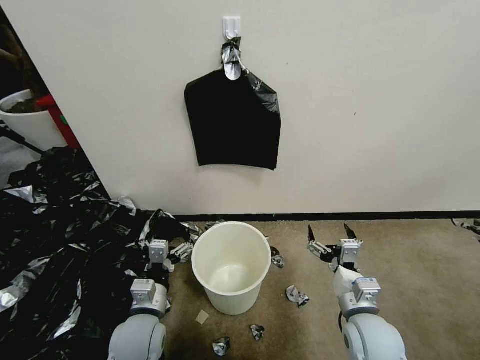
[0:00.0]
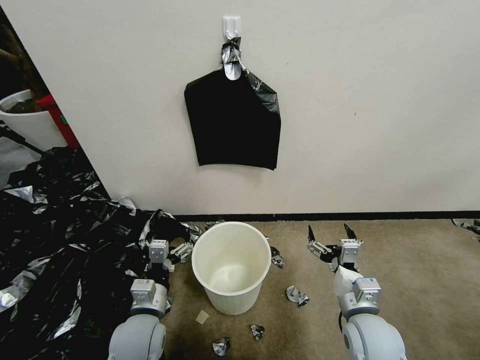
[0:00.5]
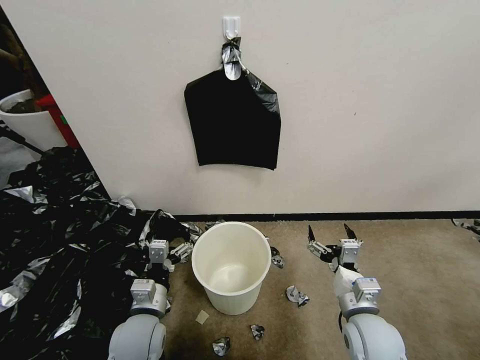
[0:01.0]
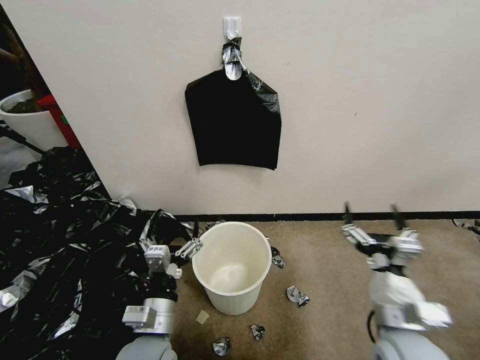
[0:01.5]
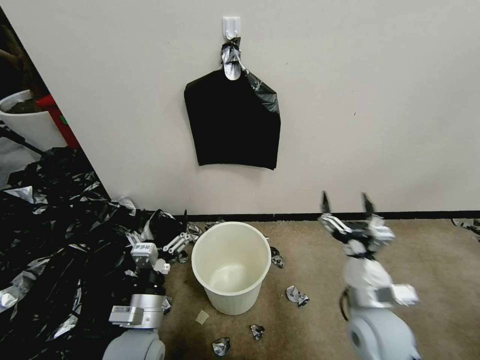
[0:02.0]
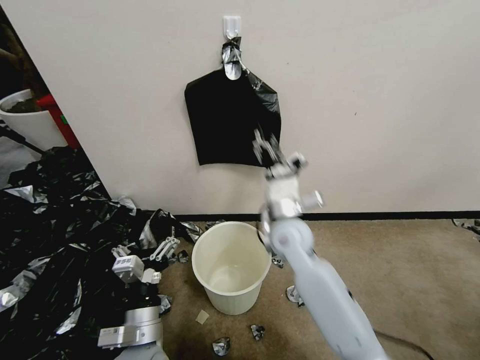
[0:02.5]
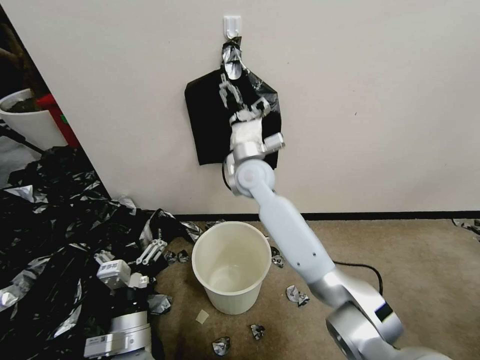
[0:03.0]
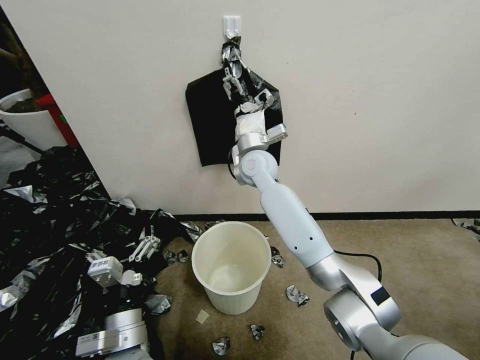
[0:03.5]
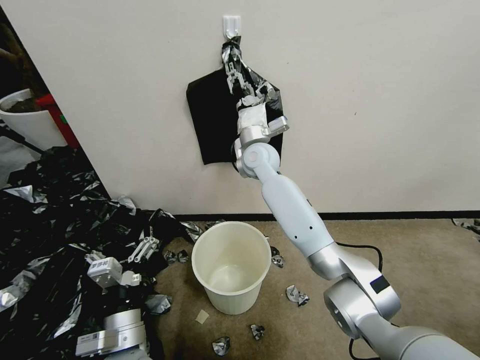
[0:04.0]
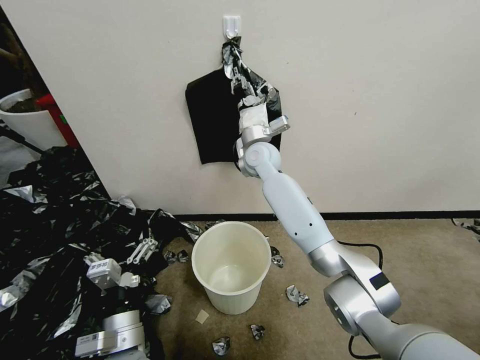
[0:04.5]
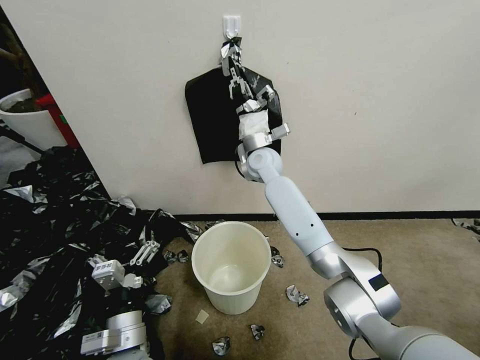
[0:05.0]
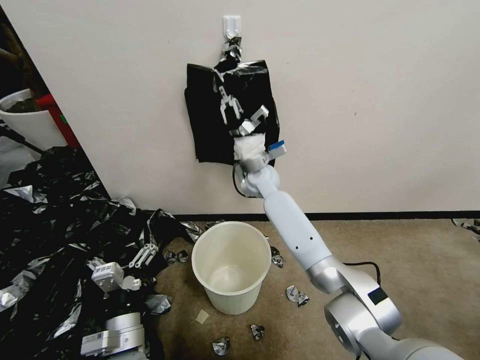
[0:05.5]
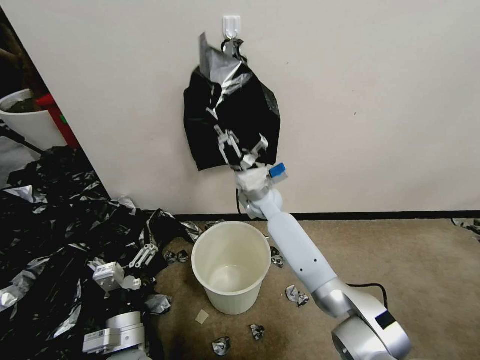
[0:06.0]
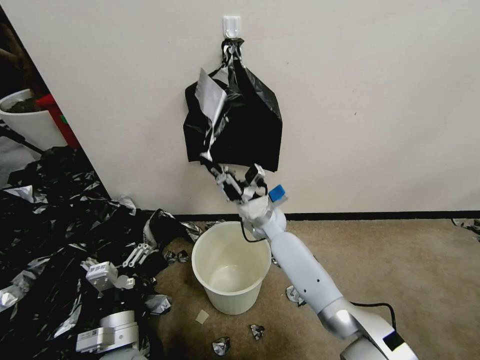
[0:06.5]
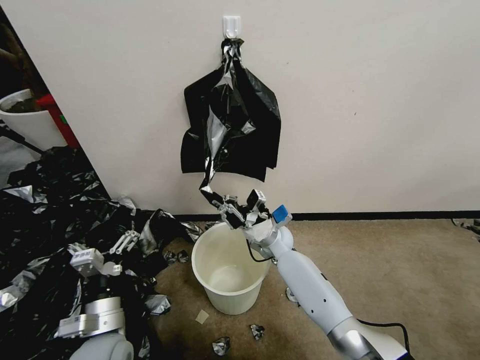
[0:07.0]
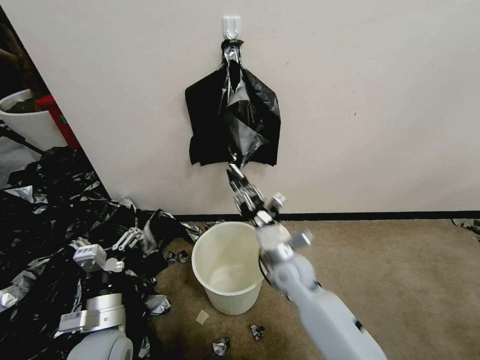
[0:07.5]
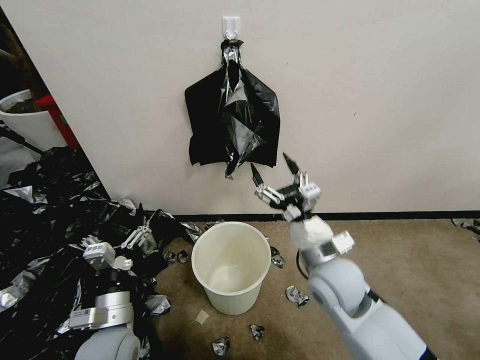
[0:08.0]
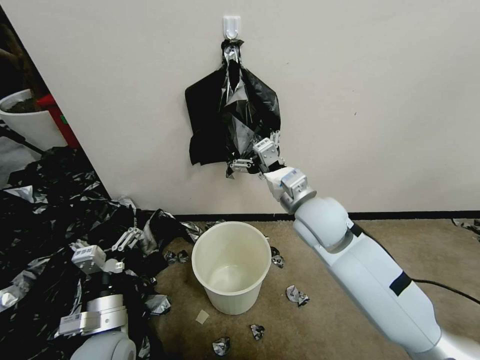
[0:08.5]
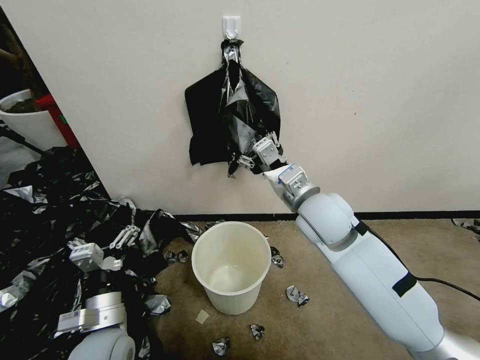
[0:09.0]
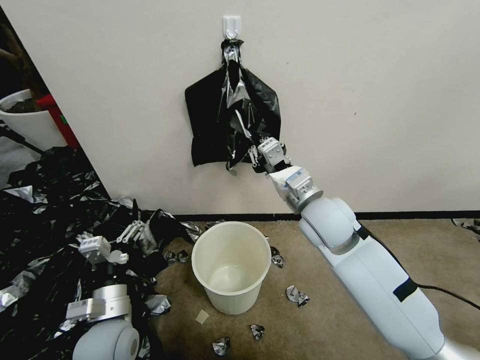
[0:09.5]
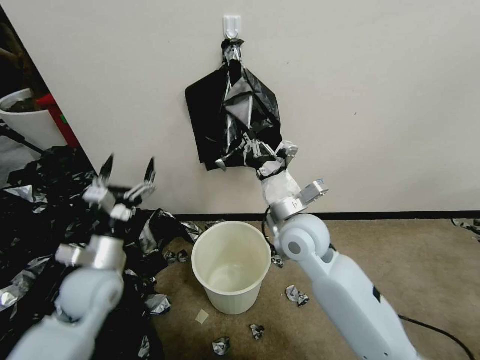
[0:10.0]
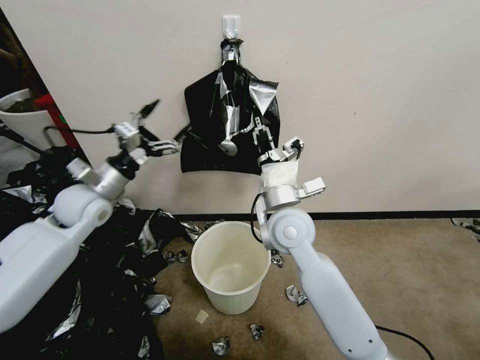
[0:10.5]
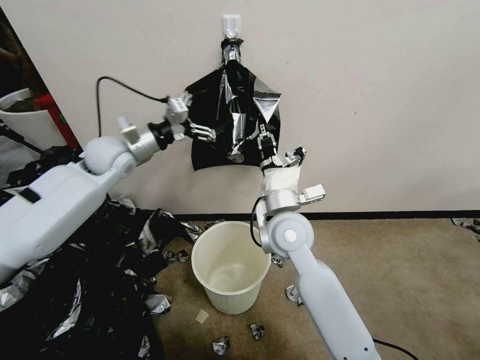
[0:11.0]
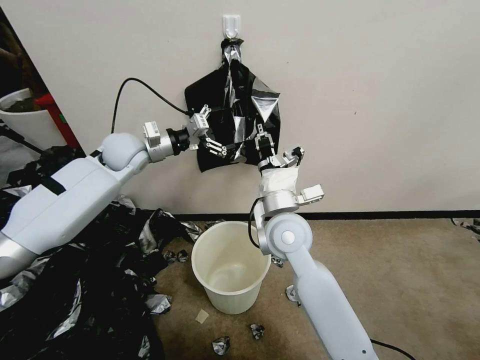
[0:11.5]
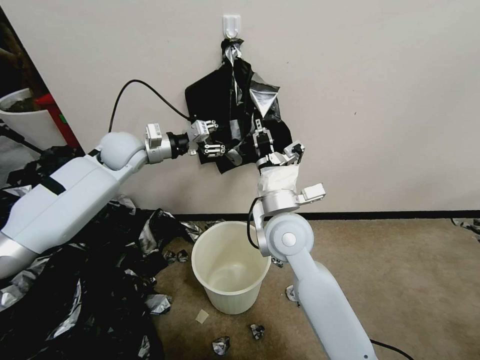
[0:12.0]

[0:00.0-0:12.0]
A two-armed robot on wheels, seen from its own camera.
Task of the whole recording: Place a trash bag onto the trash bin.
0:02.0 to 0:04.0: The right gripper is displaced forward, to the left and upward by approximately 40 cm, and closes.
0:04.0 to 0:06.0: The right gripper travels downward by some 10 cm, and closes up.
0:06.0 to 0:08.0: The right gripper goes approximately 25 cm backward and to the right, and opens, while the left gripper shifts by approximately 5 cm.
0:08.0 to 0:10.0: The left gripper goes some 10 cm forward and upward. The right gripper moves forward, to the left and upward, about 10 cm, and closes.
0:10.0 to 0:12.0: The left gripper goes approximately 30 cm forward and upward, and closes.

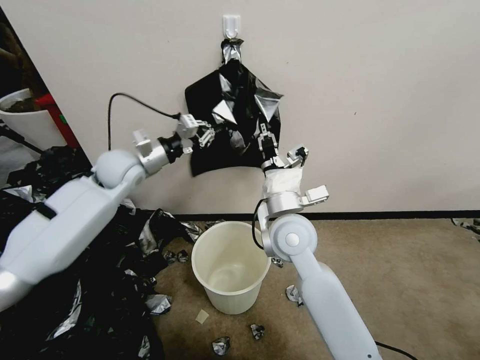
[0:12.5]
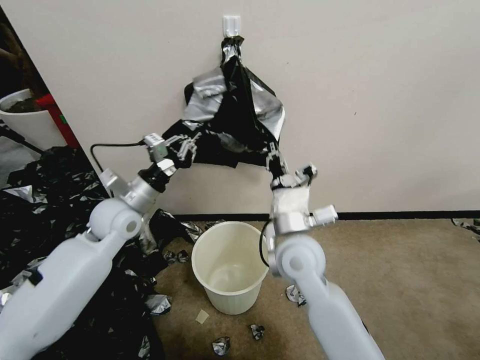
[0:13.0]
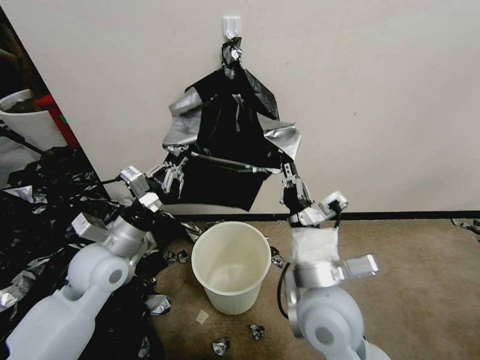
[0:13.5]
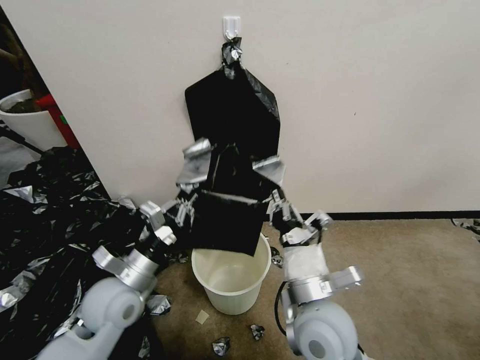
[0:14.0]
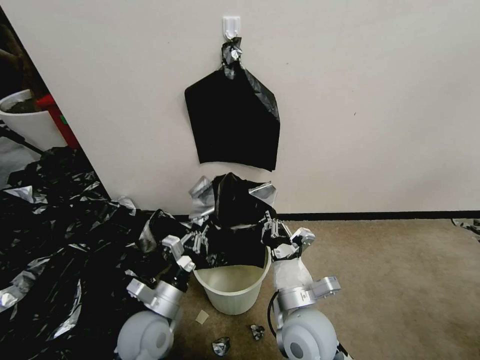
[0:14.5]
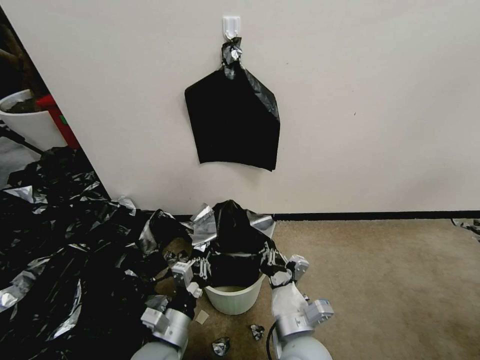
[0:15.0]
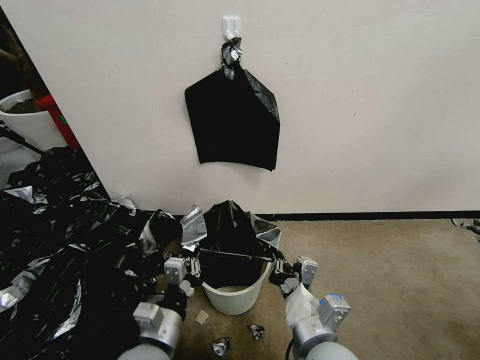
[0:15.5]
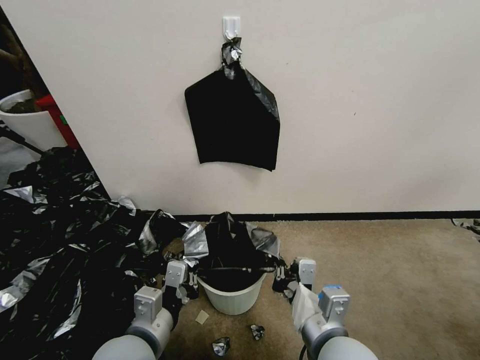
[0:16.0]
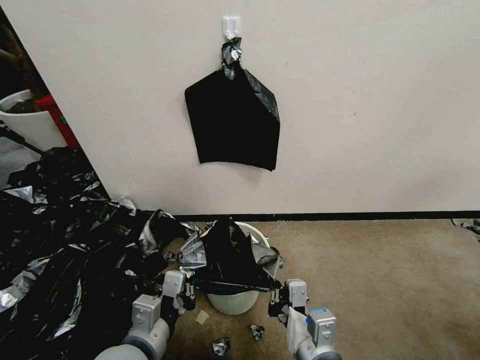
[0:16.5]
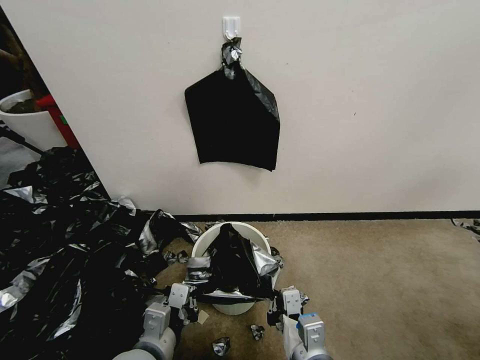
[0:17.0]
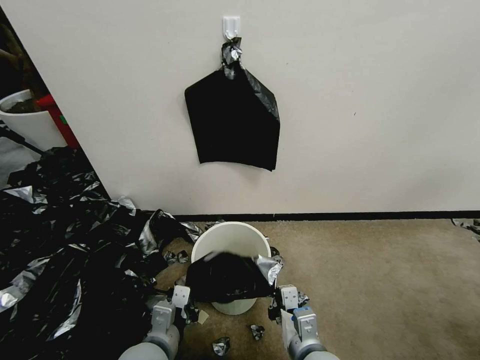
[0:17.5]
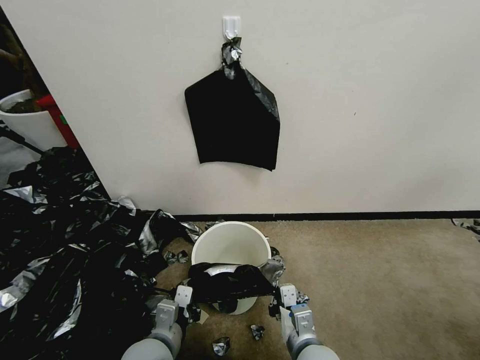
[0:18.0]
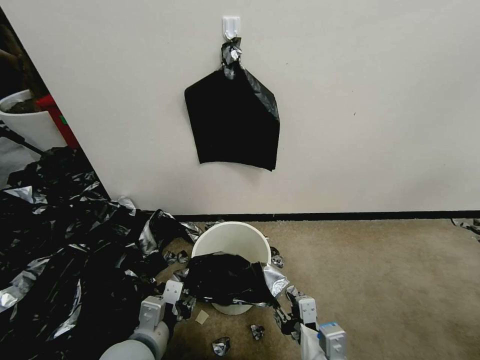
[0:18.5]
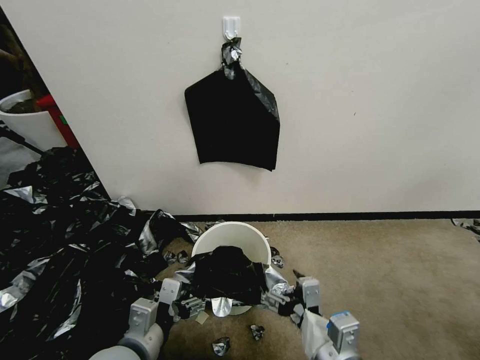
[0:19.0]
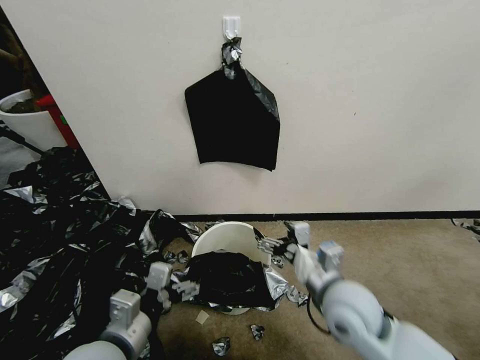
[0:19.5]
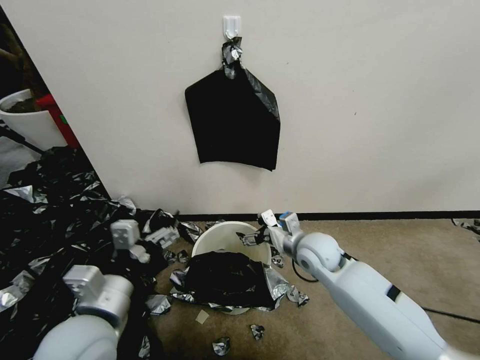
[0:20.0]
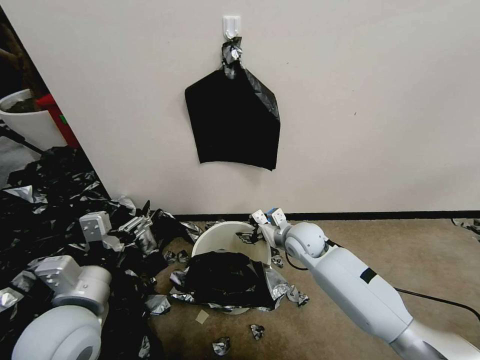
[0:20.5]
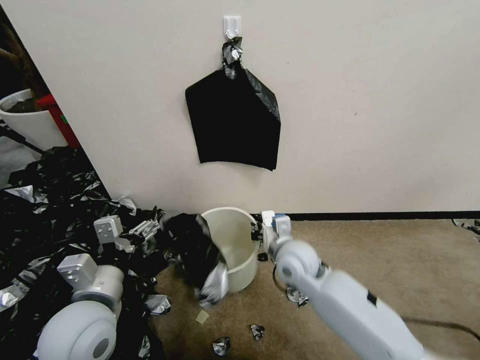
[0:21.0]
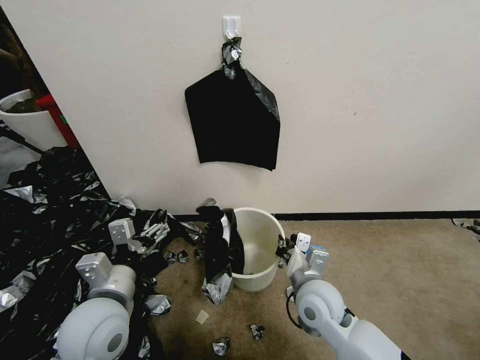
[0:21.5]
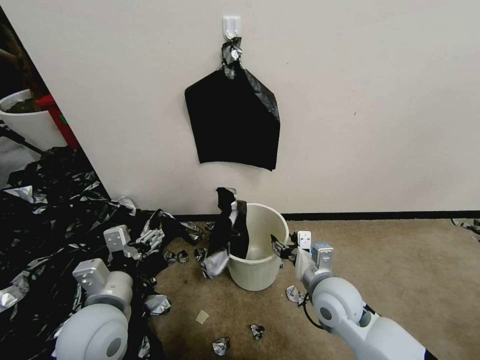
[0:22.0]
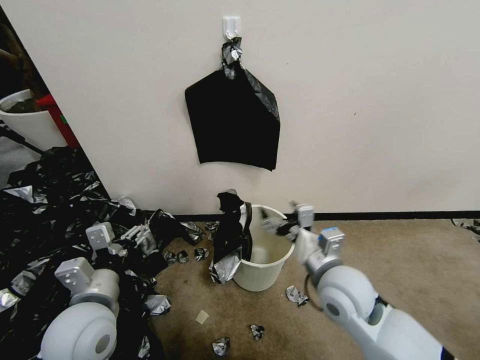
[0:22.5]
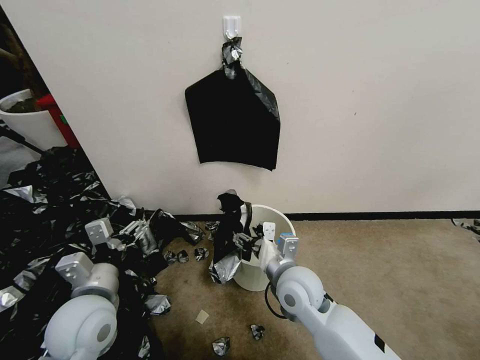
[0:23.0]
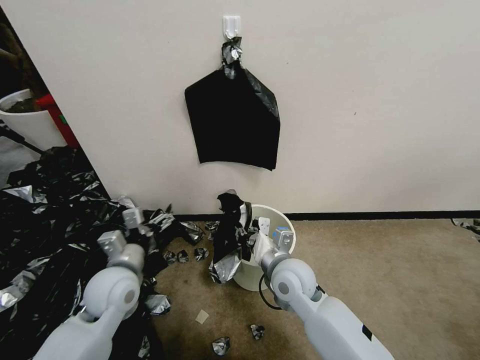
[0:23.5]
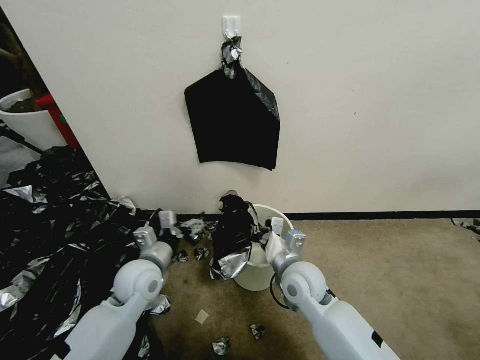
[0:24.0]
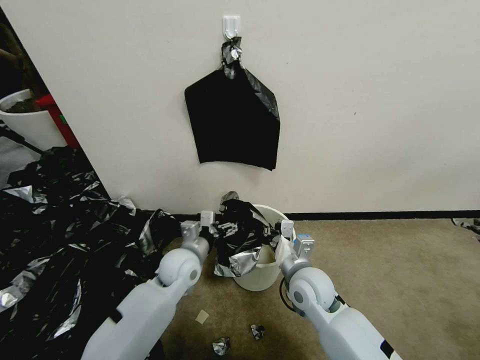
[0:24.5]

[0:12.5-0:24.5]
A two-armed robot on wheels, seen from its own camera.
Task of the whole recording: Place a trash bag onto the trash bin.
0:12.5 to 0:14.5: The right gripper moves backward and downward, approximately 20 cm, while the left gripper moves backward and downward, about 35 cm.
0:14.5 to 0:16.5: The right gripper is displaced backward by roughly 10 cm, while the left gripper heads upward and backward, covering some 10 cm.
0:16.5 to 0:18.5: The right gripper opens up. Meanwhile the left gripper opens up.
0:18.5 to 0:20.5: The left gripper heads upward and to the left, covering about 15 cm, and opens up, while the right gripper heads forward, covering approximately 30 cm, and opens and closes again.
0:20.5 to 0:22.5: The right gripper is displaced backward and upward by about 20 cm, and opens.
0:22.5 to 0:24.5: The left gripper moves forward, downward and to the right, approximately 20 cm, while the right gripper moves downward, approximately 10 cm, and closes up.

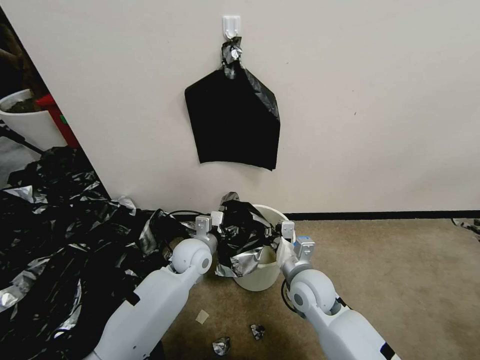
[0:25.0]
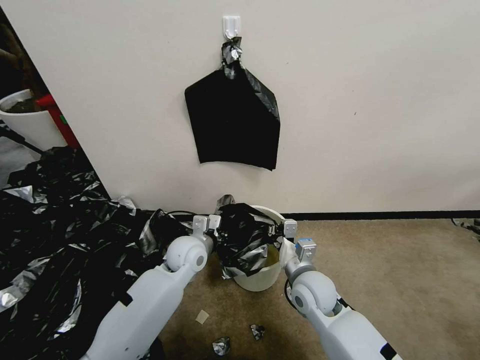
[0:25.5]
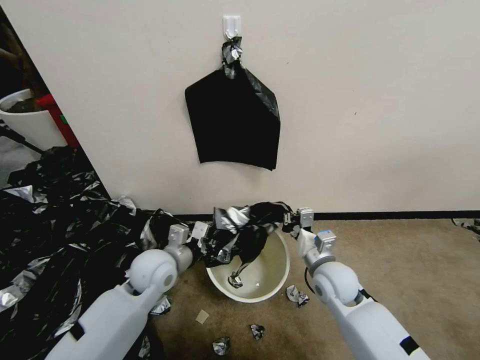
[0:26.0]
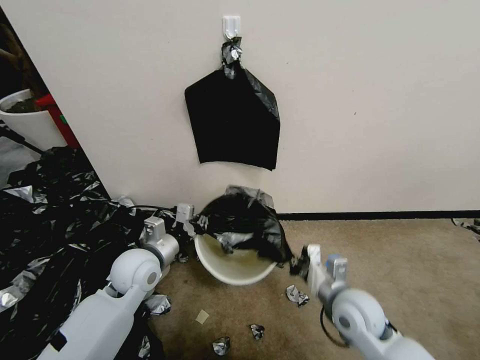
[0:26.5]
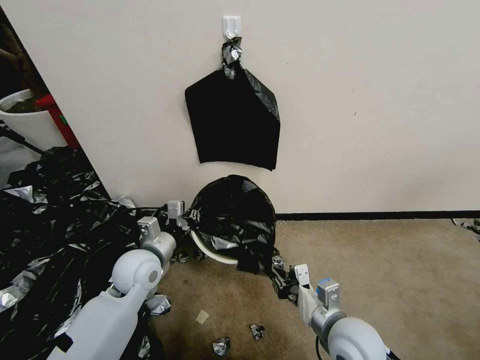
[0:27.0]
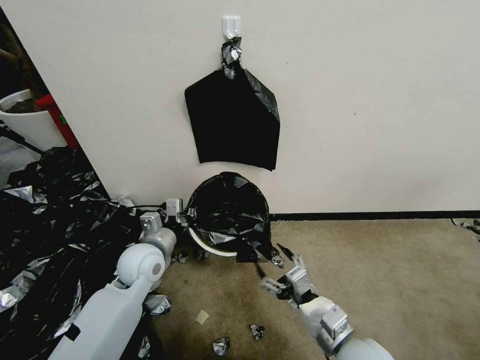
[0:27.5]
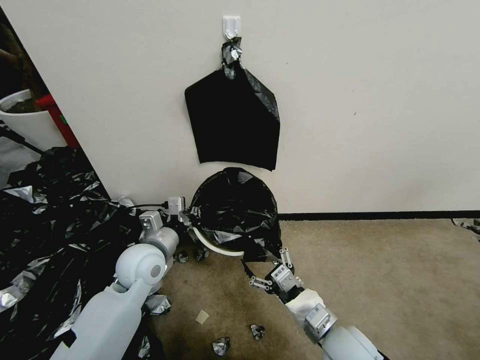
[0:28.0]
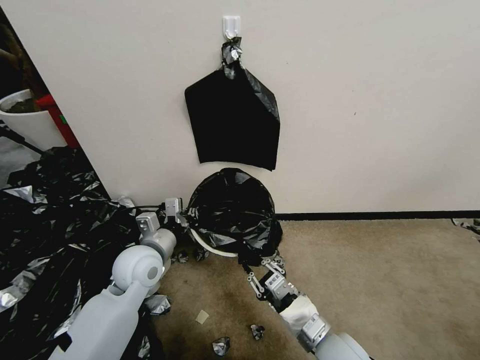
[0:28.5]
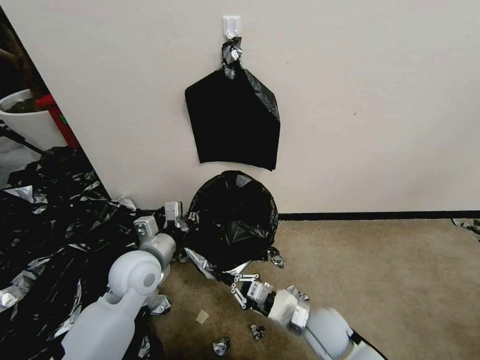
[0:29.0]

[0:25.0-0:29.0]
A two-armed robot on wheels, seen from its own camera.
Task of the whole recording: Place a trash bag onto the trash bin.
0:25.0 to 0:27.0: The left gripper shifts about 15 cm to the left, backward and upward, and closes up. The right gripper is displaced backward and to the right by about 10 cm.
0:27.0 to 0:29.0: The right gripper shifts about 10 cm downward, and opens and closes again.
